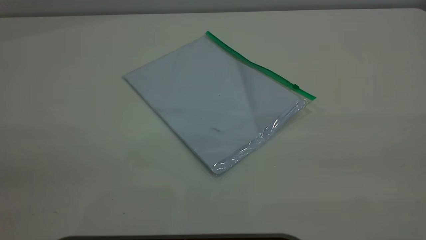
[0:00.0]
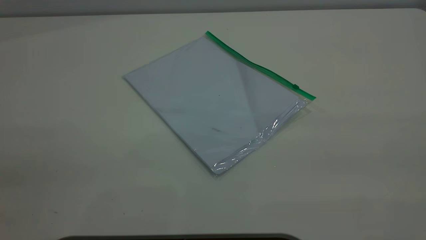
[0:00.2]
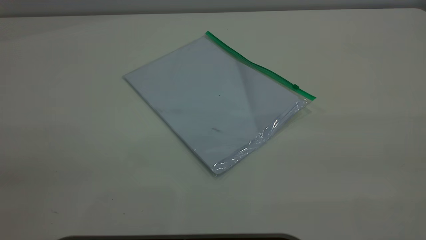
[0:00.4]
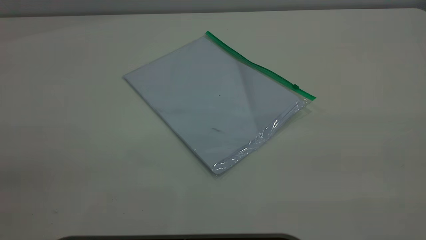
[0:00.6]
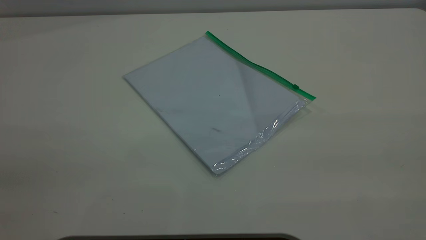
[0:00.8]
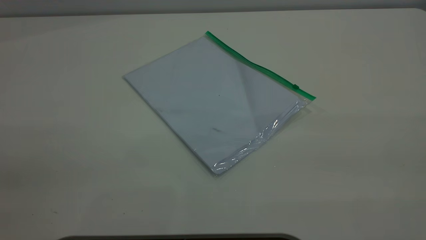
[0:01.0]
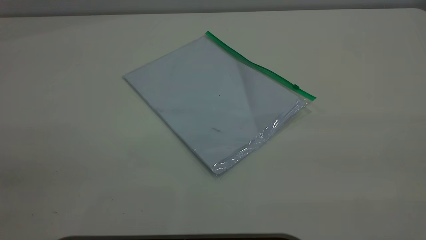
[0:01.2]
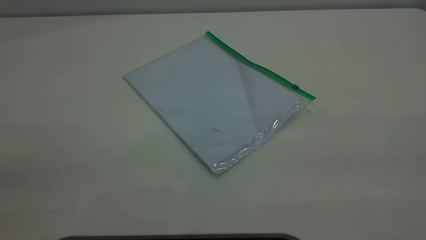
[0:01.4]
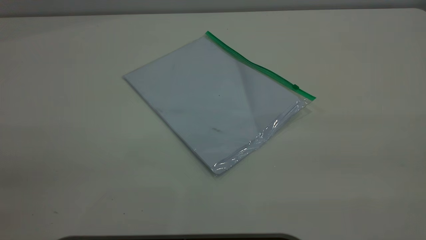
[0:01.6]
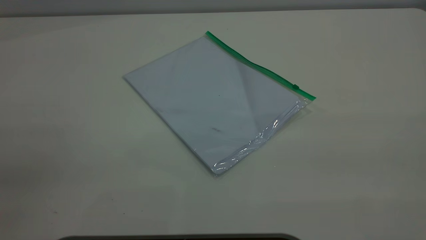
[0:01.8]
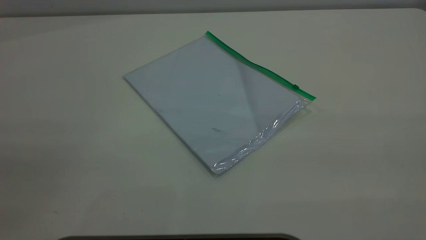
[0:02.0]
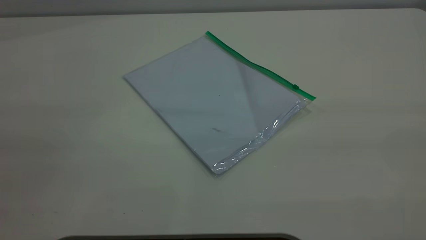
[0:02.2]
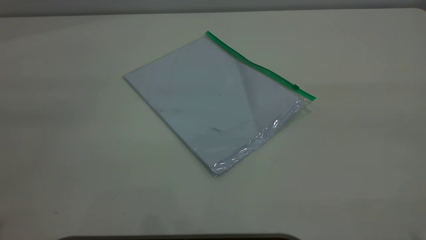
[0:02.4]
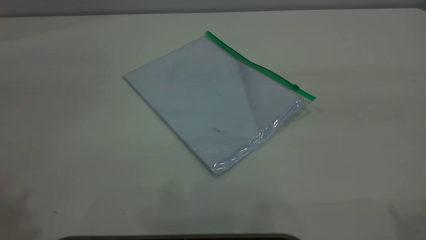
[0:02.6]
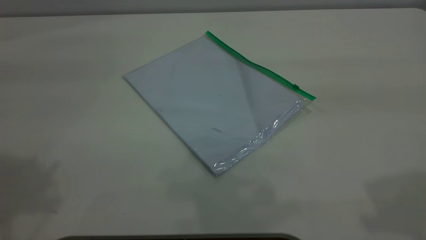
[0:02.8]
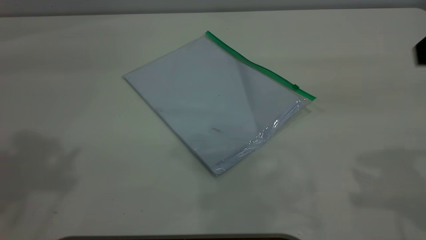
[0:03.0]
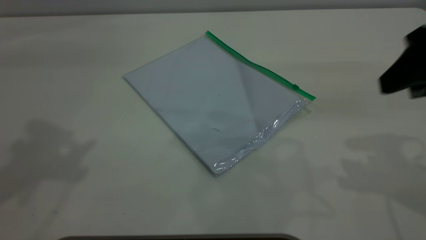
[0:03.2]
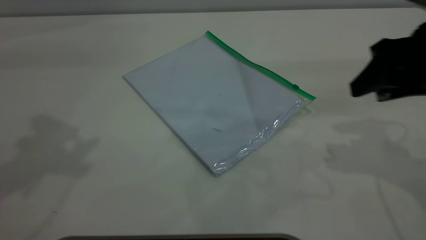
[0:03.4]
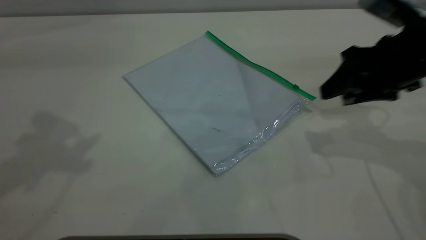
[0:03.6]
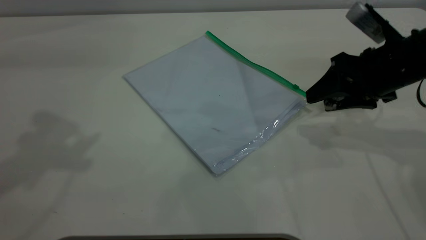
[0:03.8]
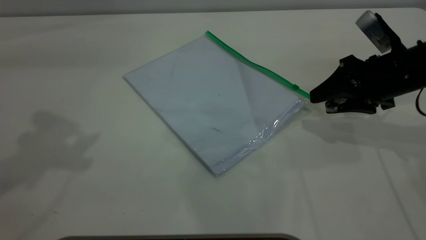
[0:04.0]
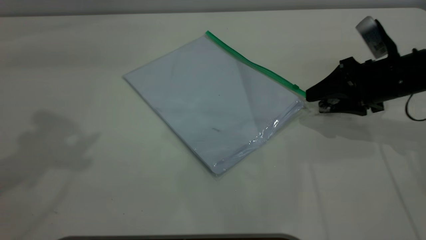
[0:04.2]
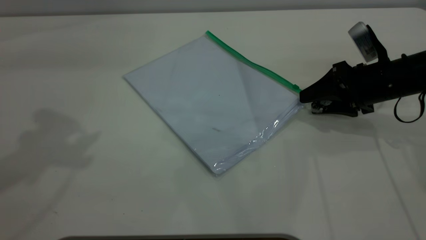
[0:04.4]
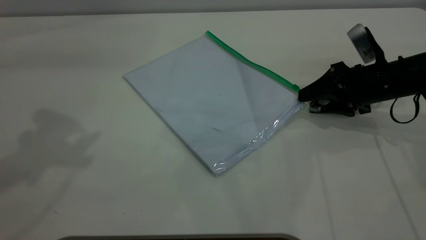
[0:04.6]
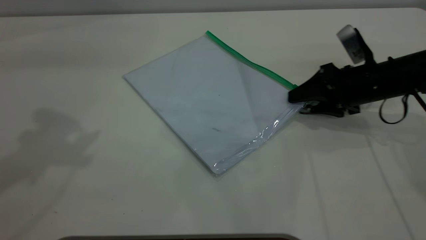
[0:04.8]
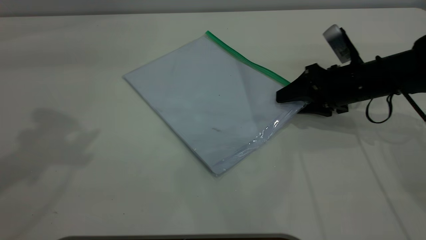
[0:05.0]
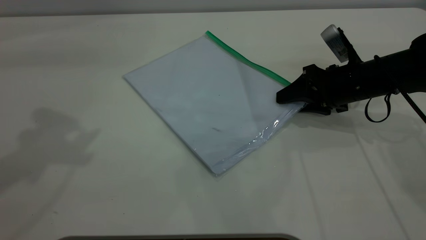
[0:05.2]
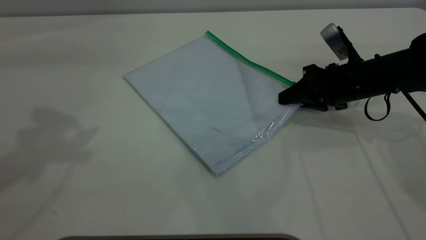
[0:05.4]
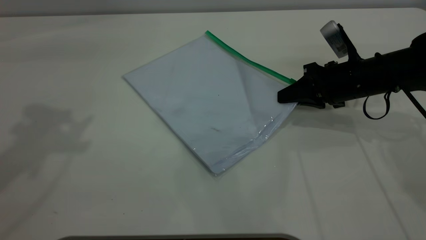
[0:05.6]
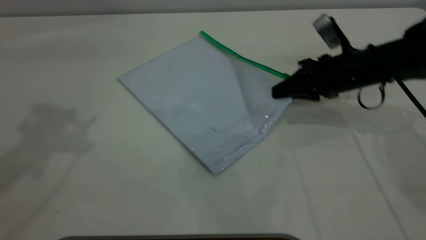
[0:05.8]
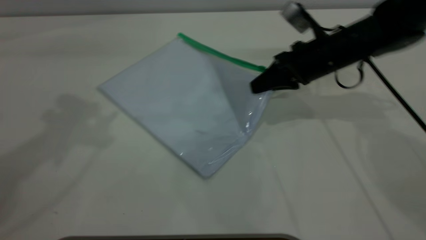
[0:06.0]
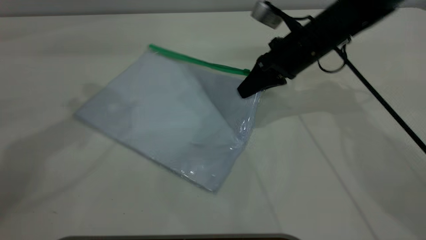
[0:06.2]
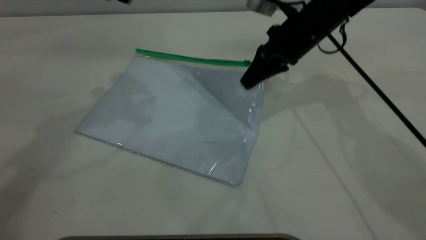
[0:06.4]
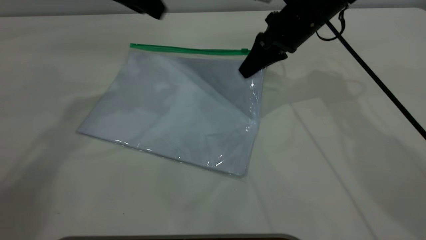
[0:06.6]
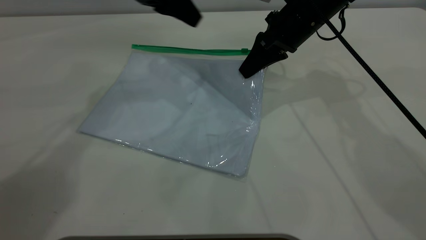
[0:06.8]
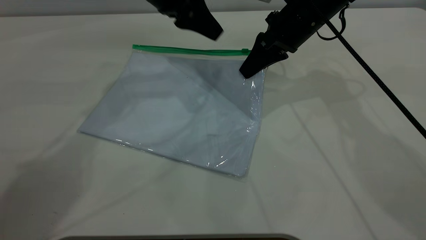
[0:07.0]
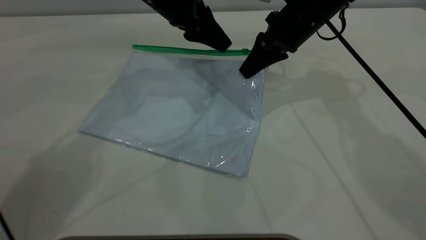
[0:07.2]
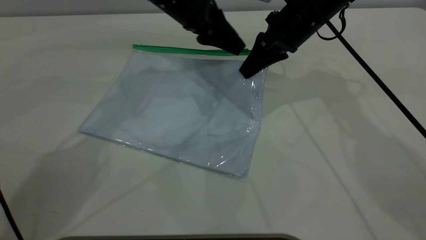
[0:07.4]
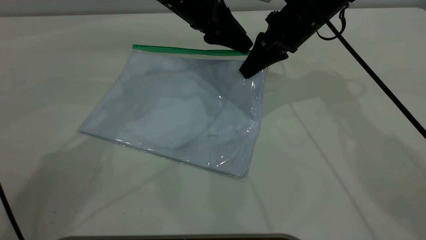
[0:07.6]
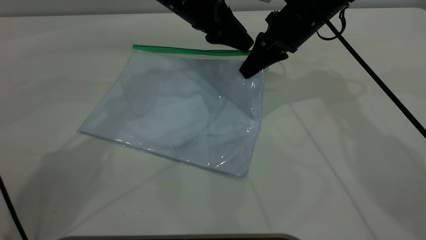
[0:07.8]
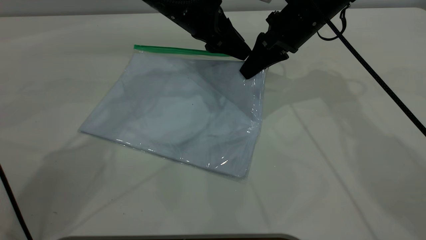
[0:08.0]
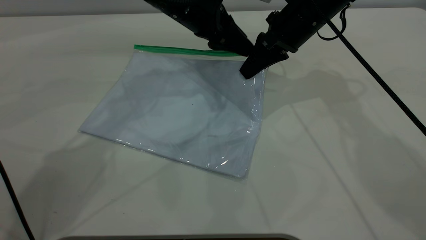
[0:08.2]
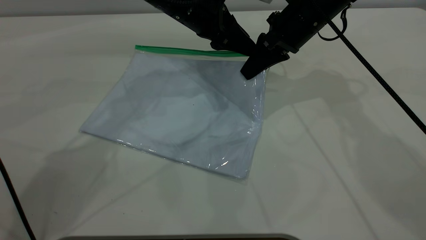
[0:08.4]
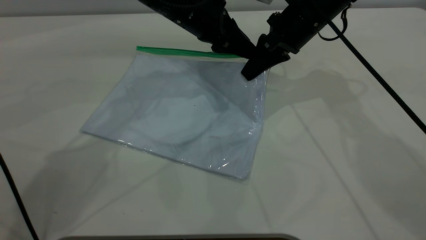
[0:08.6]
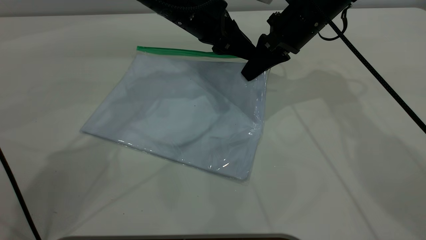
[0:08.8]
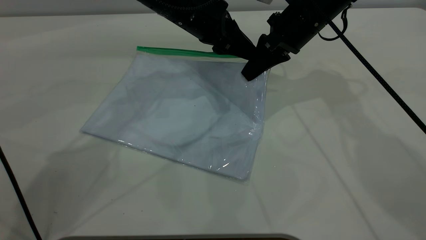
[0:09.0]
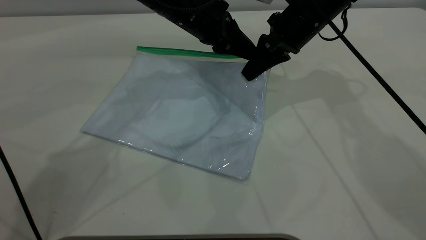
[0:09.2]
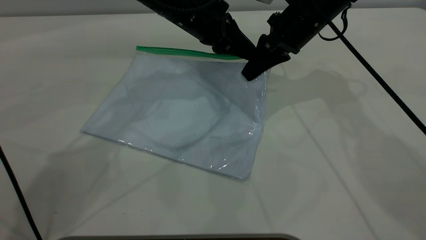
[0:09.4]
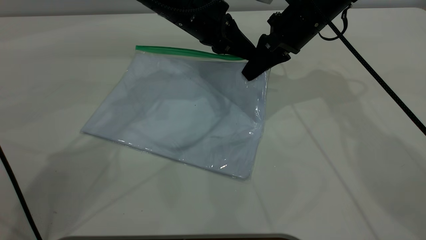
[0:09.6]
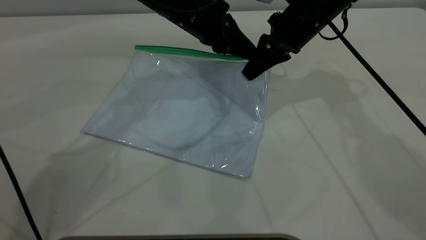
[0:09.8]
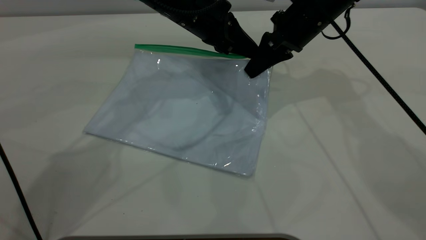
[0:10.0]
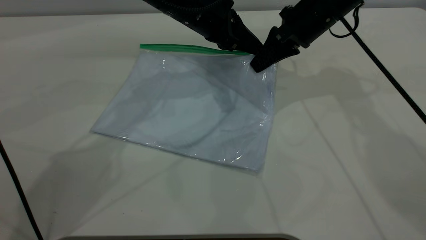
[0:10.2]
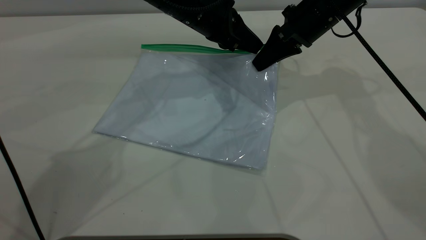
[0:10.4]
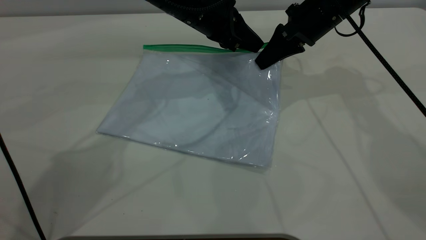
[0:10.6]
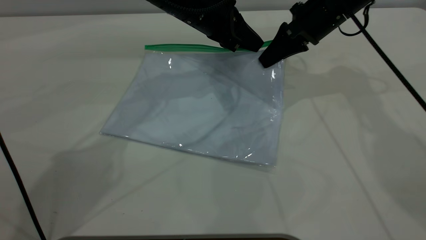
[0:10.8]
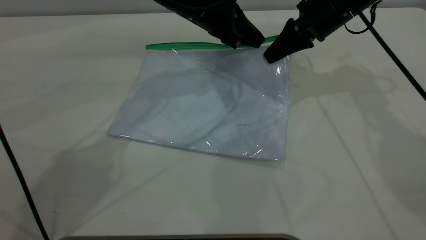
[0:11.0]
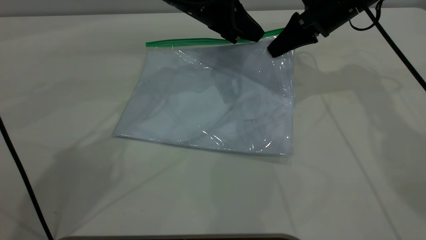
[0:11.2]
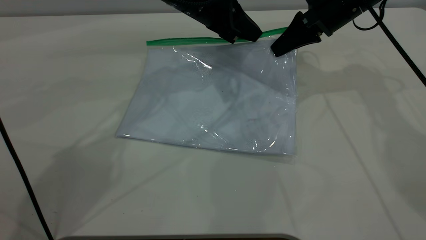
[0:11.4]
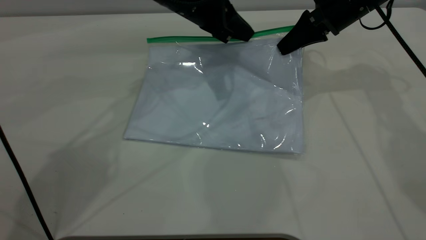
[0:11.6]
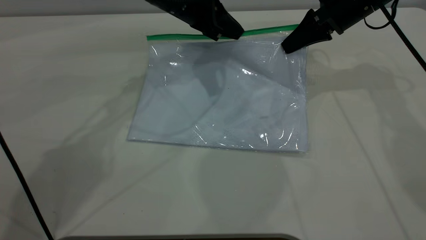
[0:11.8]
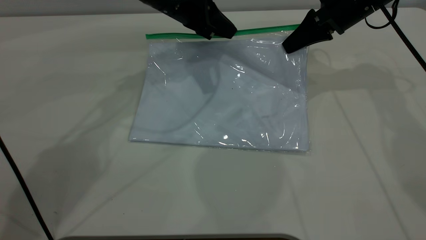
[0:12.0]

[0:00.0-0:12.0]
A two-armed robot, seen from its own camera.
Step, 0:00.0 to 0:05.8: Pick up the transparent plastic bag with the right gripper.
0:00.0 to 0:01.6: Neither gripper changes place.
0:03.0 to 0:04.4: The right gripper shifts some 25 cm downward and forward.
0:04.4 to 0:06.0: The right gripper heads to the left, covering about 10 cm, and closes up. Meanwhile the left gripper ends up approximately 5 cm from where it was.
0:06.0 to 0:07.6: The left gripper travels to the right, downward and forward by about 30 cm. The right gripper ends up some 5 cm from where it was.
0:07.6 to 0:09.0: The left gripper closes up.
0:09.0 to 0:10.4: The left gripper closes up.
0:10.4 to 0:12.0: The left gripper ends up about 5 cm from where it was; the right gripper shifts approximately 5 cm to the right.

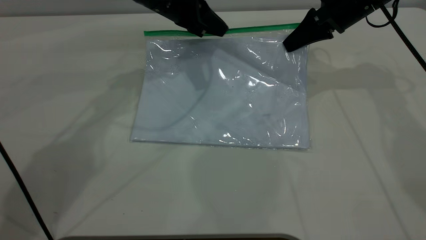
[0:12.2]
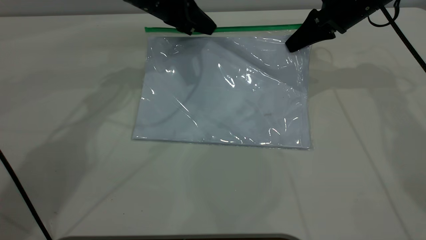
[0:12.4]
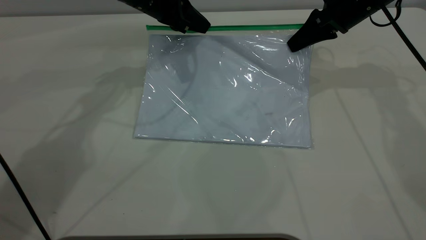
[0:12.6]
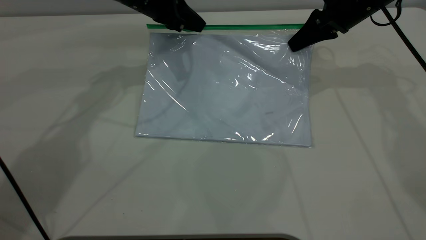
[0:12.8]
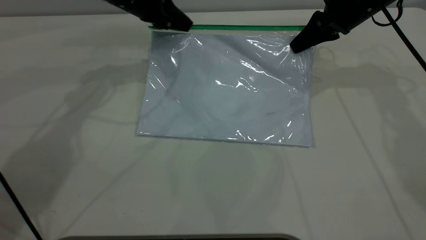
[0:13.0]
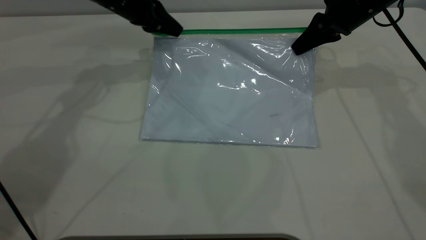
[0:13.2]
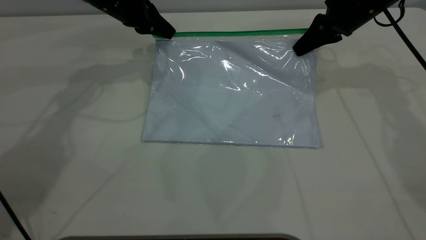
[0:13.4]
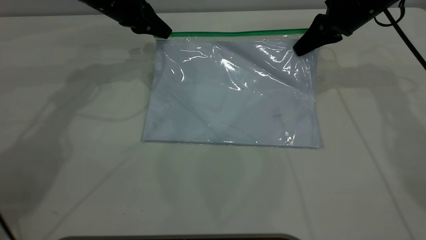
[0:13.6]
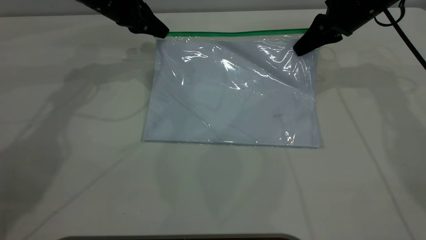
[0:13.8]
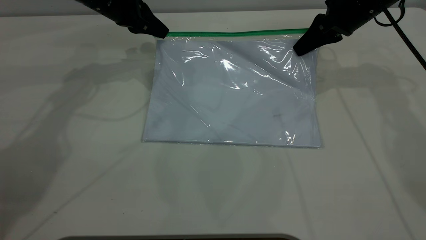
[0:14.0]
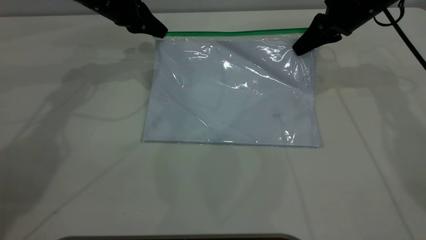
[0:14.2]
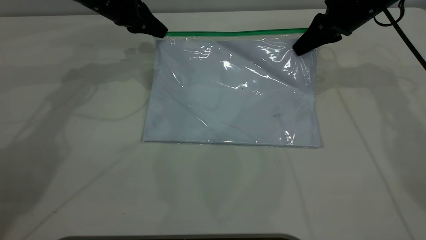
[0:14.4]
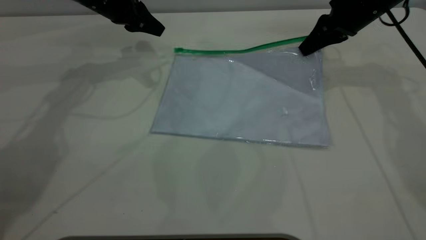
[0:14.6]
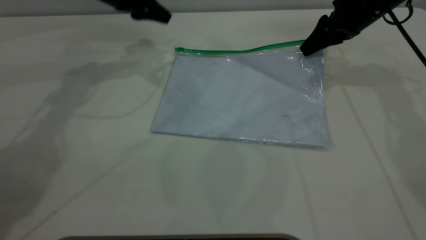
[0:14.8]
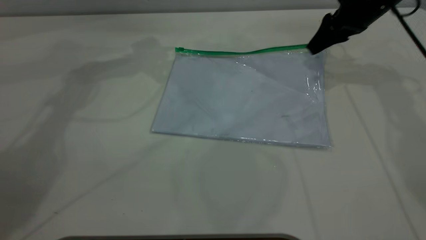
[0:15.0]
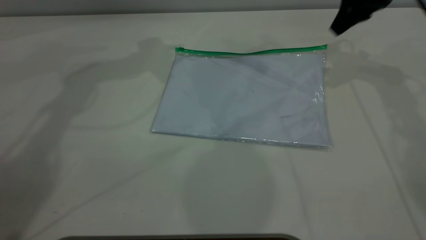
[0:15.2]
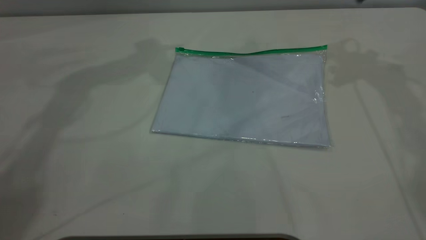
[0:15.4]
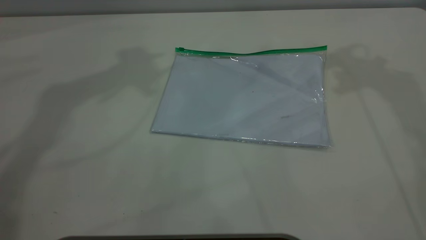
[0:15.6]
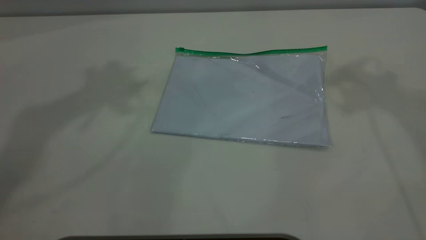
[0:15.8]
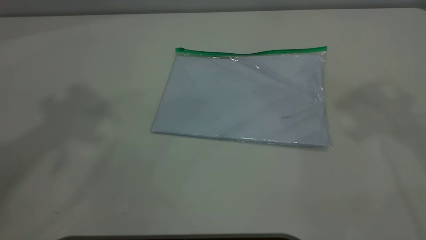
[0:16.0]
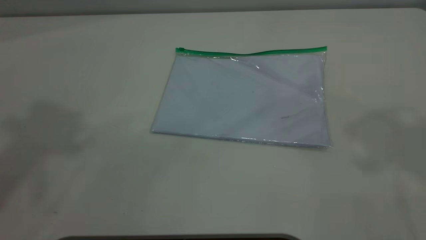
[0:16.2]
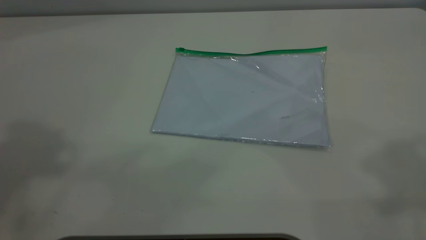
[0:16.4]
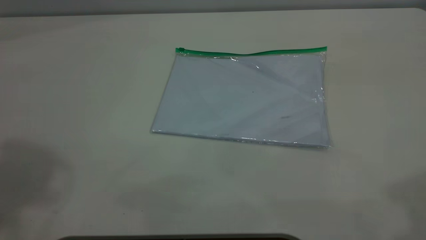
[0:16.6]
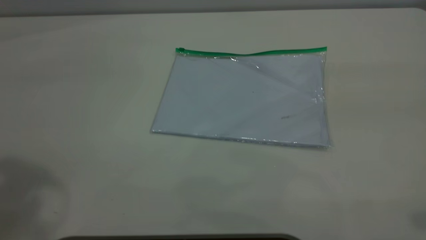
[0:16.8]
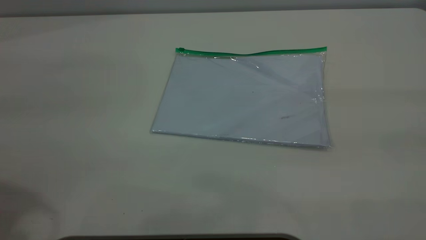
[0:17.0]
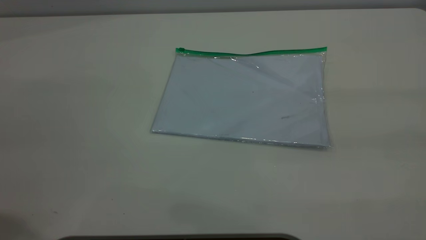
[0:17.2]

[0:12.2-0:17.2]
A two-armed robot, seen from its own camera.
Step, 0:12.2 to 0:14.4: Pulling up the zipper on the transparent plastic bag with the left gripper to close it.
Step, 0:14.6 to 0:15.0: Place the transparent plastic bag.
0:12.2 to 0:13.8: The left gripper is displaced to the left by approximately 10 cm.
0:13.8 to 0:15.6: Both grippers move upward, some 25 cm. The left gripper opens its fingers. Meanwhile the right gripper opens up.
